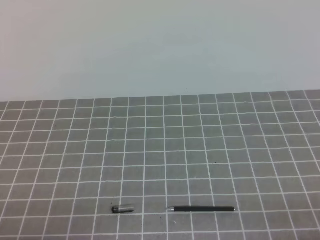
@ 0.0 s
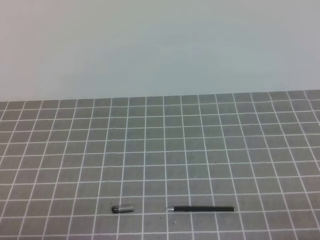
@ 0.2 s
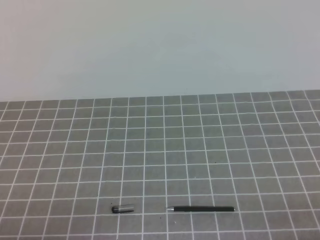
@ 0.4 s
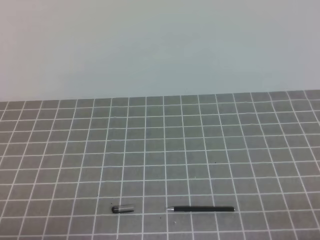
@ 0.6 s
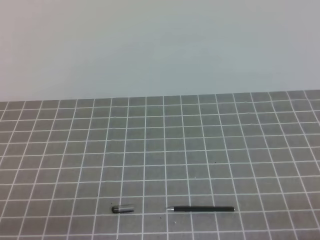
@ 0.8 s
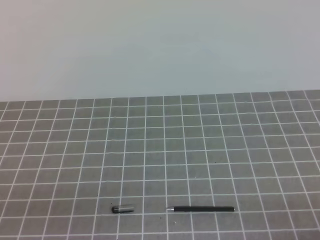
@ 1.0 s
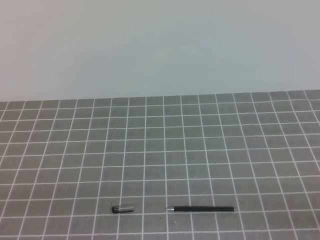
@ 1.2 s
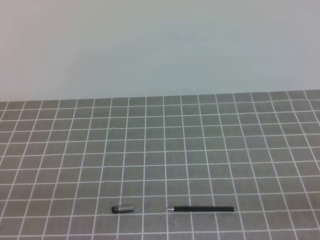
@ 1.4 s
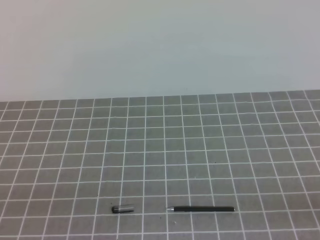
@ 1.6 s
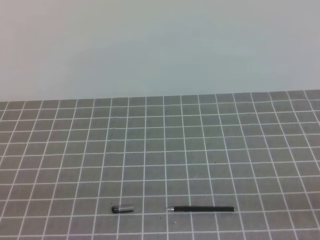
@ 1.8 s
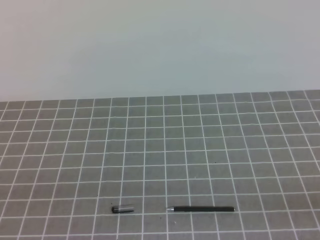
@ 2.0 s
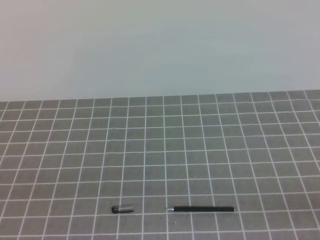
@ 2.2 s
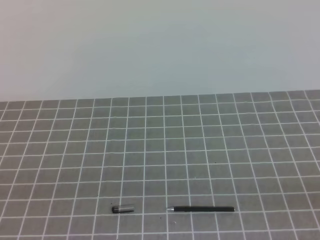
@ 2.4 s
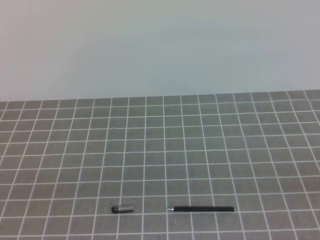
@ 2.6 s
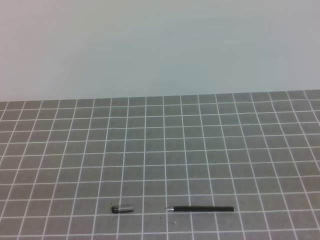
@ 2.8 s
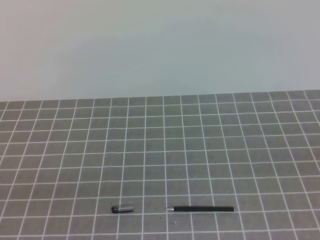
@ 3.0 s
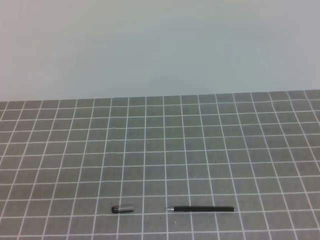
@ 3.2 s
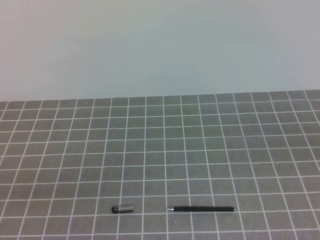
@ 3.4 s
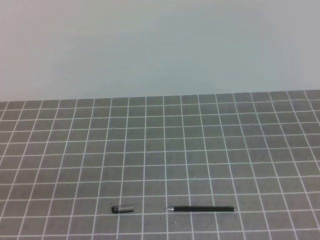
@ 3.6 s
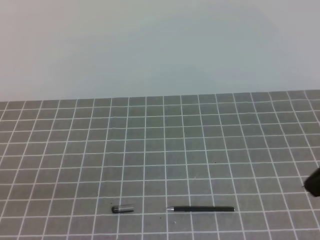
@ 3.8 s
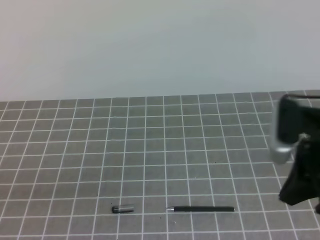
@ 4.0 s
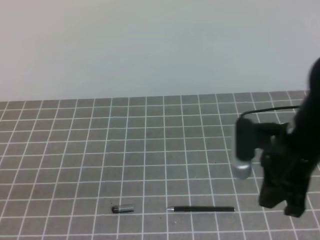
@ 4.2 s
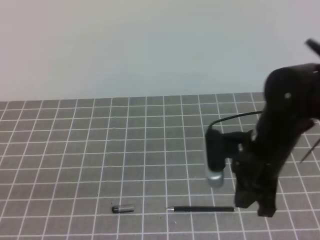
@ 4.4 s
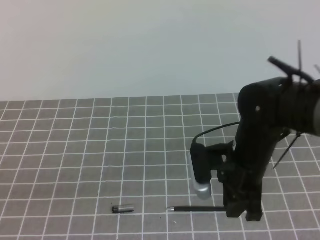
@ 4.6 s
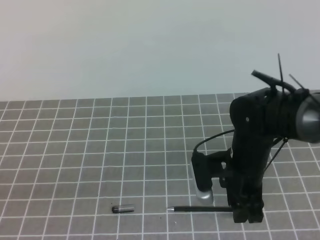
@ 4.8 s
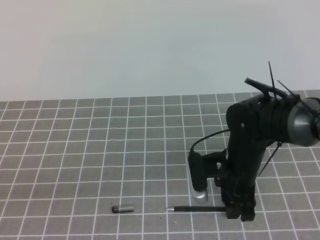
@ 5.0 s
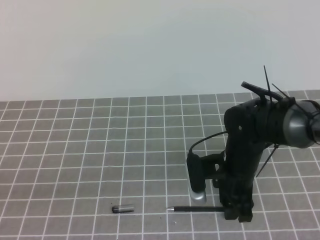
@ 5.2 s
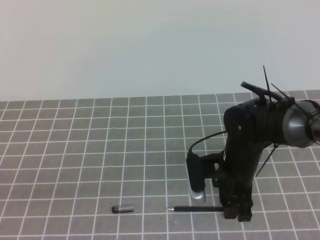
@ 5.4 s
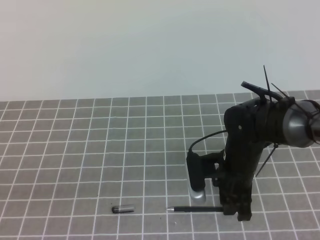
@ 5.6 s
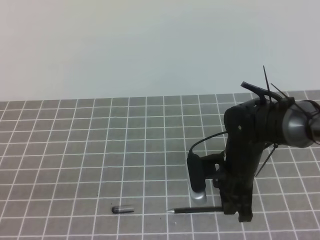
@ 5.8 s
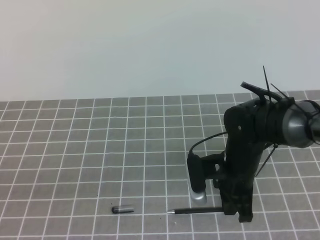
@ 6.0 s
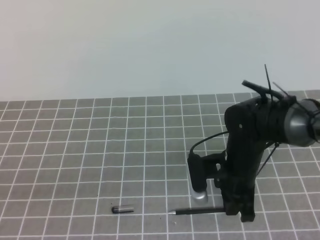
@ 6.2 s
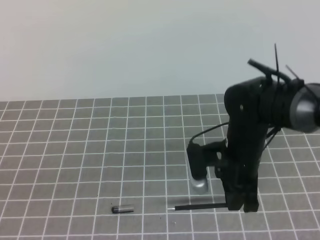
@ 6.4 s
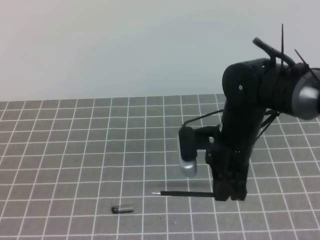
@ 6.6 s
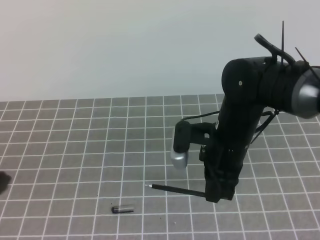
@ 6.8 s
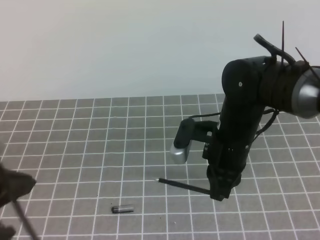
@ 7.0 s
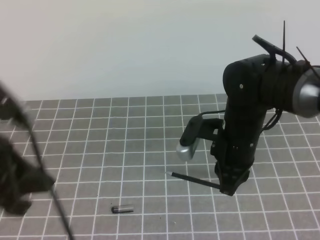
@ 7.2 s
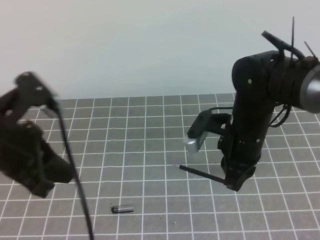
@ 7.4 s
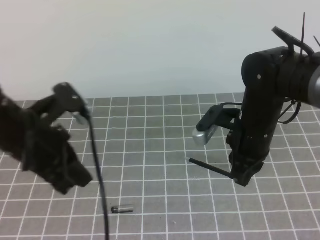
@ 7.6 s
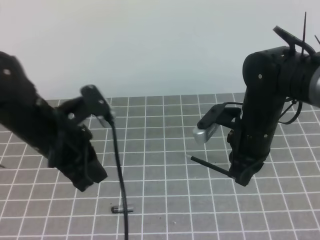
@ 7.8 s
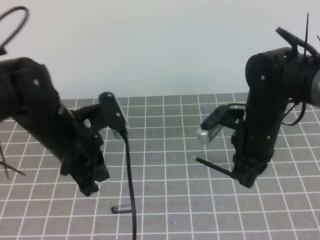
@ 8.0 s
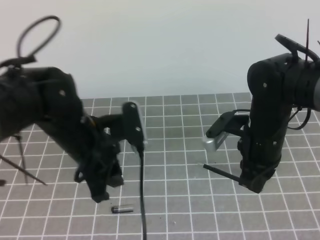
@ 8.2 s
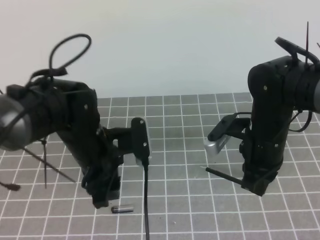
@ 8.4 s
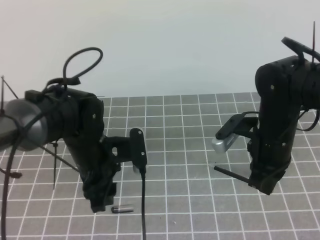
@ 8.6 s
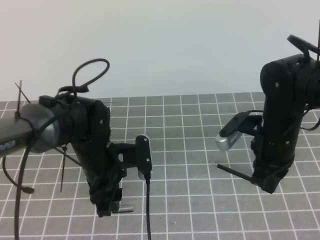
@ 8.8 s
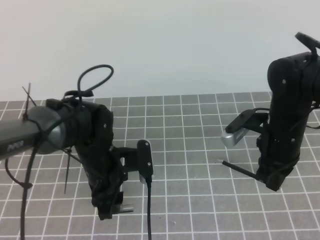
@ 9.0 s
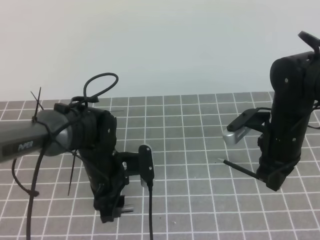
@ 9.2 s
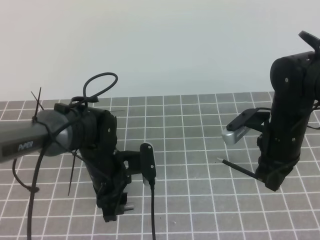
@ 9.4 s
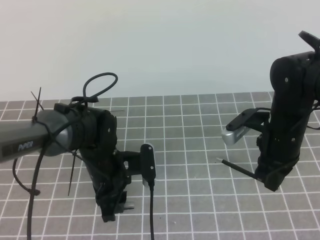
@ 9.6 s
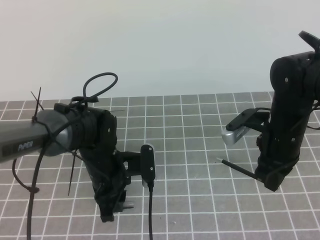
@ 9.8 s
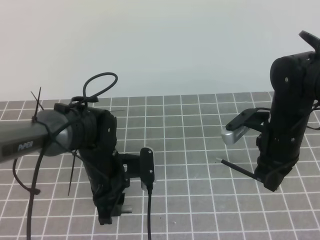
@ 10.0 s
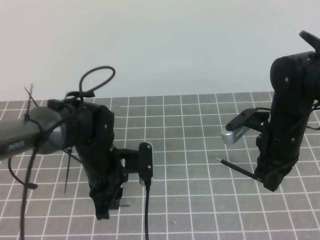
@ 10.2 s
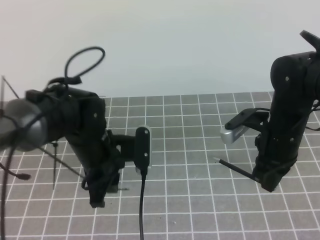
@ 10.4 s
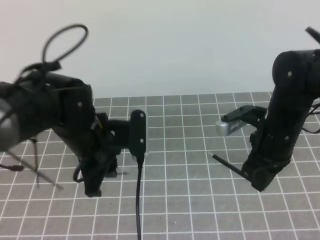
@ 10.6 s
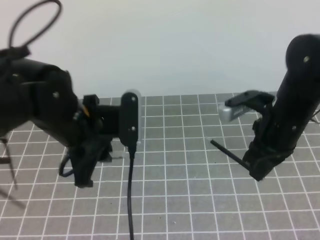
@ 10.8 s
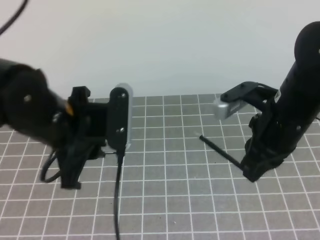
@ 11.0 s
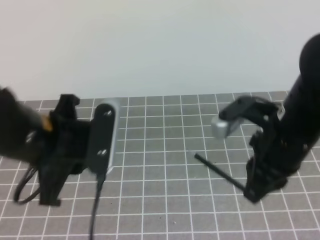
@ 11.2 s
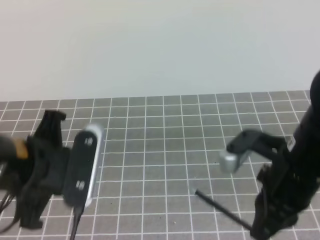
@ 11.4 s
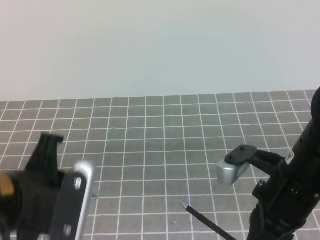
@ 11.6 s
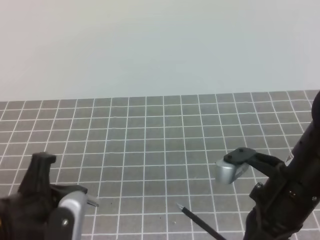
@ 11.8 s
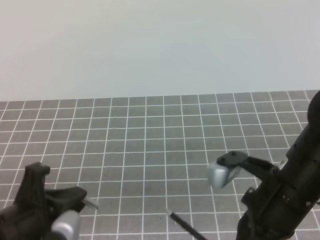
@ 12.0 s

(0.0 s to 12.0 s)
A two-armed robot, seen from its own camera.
Task of the whole recording: on the grey tablecloth, hold the pen cap in one hand and the pen in the other, then cover the pen cap.
3.0 s - 4.4 s: The right gripper shifts some 30 cm forward, to the left and downward.
4.4 s - 6.0 s: The right gripper shifts roughly 10 cm downward, and opens, then closes again.
6.0 s - 7.6 s: The left gripper goes roughly 20 cm forward and to the right, while the right gripper is displaced upward by roughly 5 cm.
7.6 s - 9.0 s: The left gripper goes approximately 15 cm downward, to the right and forward, and opens up; the right gripper ends up about 5 cm from where it was.
9.0 s - 10.4 s: The left gripper closes.
10.4 s - 12.0 s: The right gripper travels backward by about 15 cm, while the left gripper moves backward and to the left, about 20 cm.

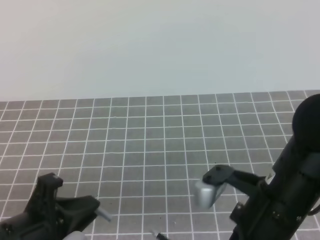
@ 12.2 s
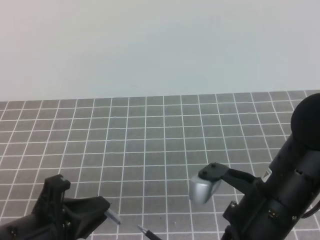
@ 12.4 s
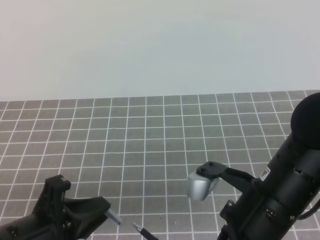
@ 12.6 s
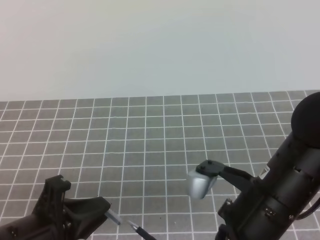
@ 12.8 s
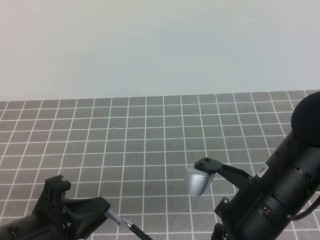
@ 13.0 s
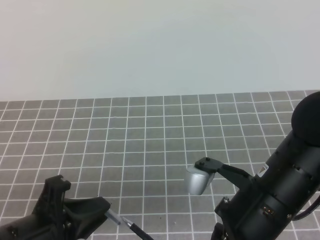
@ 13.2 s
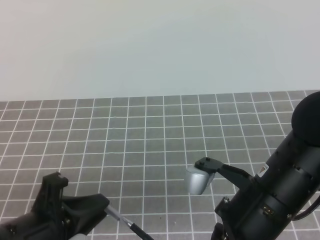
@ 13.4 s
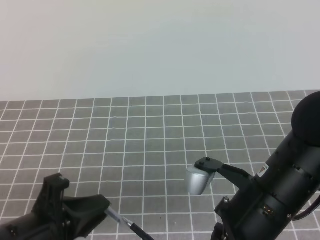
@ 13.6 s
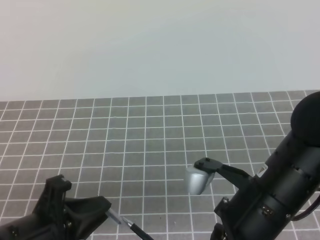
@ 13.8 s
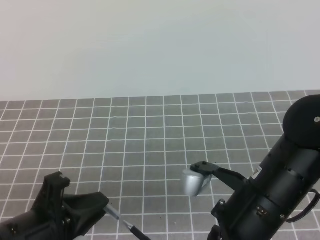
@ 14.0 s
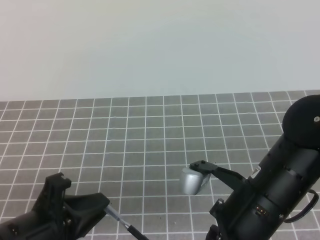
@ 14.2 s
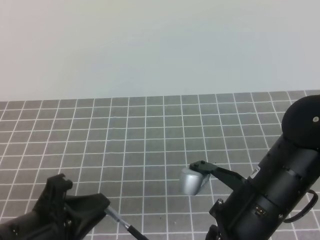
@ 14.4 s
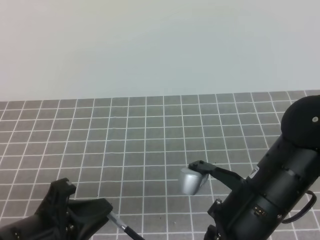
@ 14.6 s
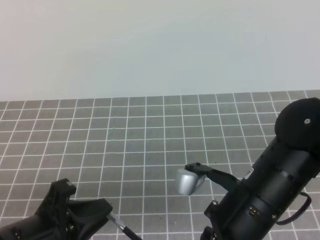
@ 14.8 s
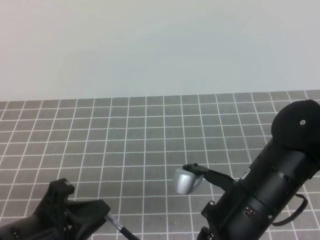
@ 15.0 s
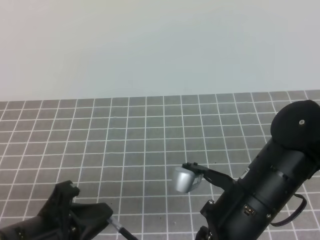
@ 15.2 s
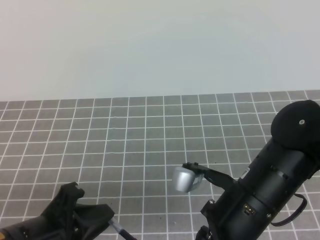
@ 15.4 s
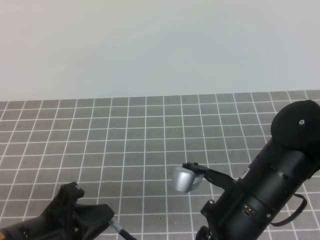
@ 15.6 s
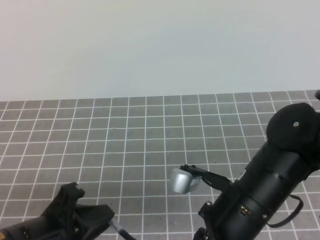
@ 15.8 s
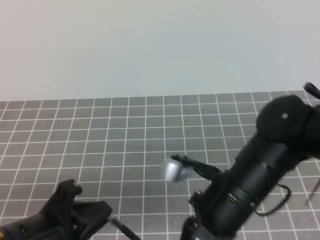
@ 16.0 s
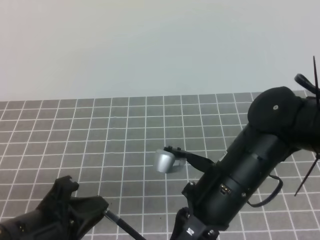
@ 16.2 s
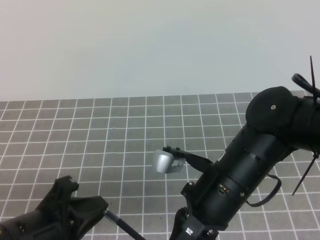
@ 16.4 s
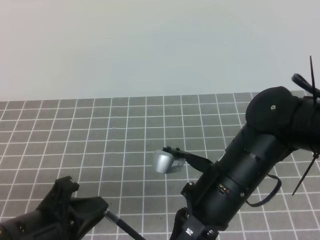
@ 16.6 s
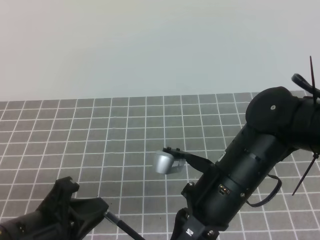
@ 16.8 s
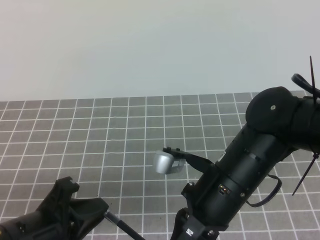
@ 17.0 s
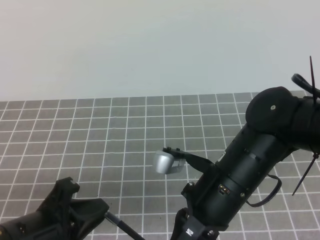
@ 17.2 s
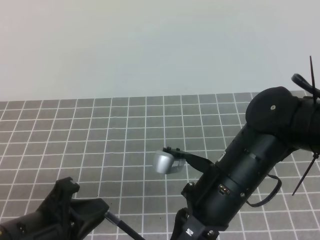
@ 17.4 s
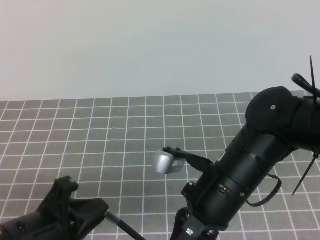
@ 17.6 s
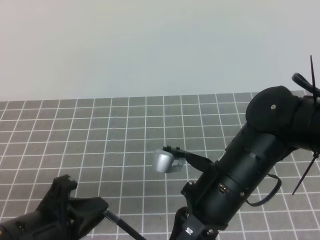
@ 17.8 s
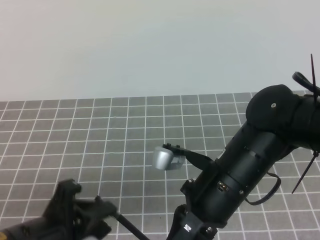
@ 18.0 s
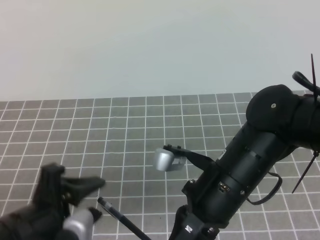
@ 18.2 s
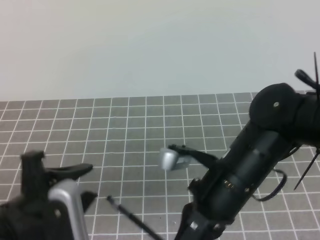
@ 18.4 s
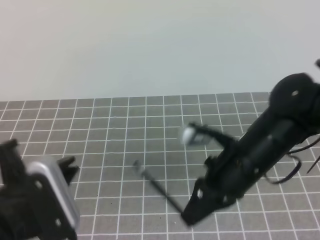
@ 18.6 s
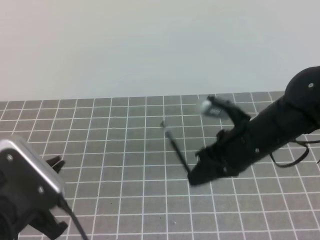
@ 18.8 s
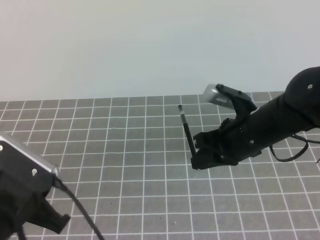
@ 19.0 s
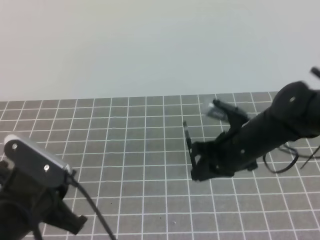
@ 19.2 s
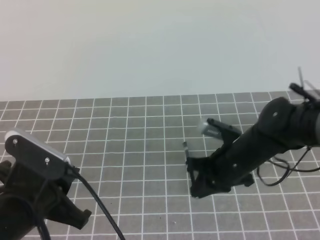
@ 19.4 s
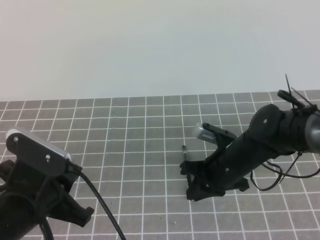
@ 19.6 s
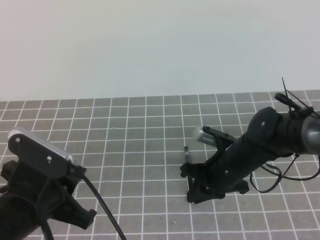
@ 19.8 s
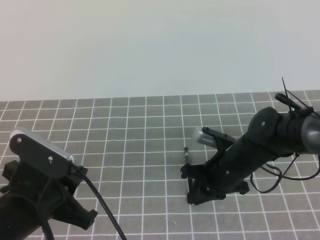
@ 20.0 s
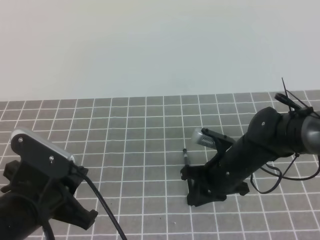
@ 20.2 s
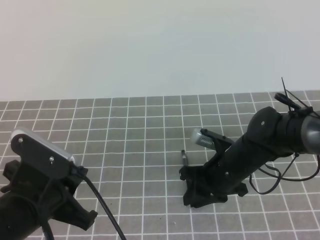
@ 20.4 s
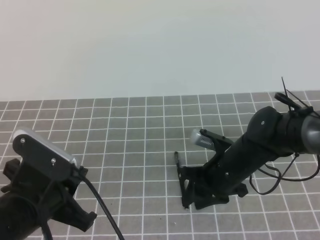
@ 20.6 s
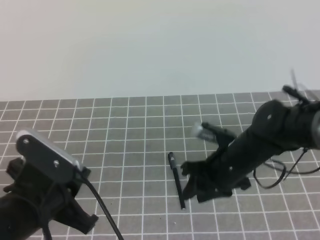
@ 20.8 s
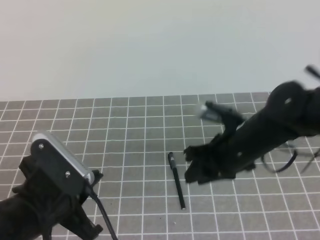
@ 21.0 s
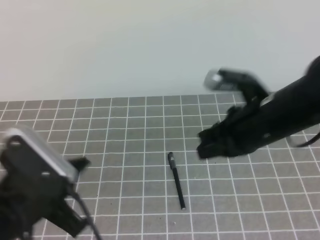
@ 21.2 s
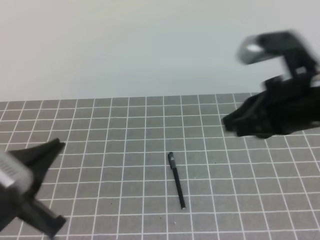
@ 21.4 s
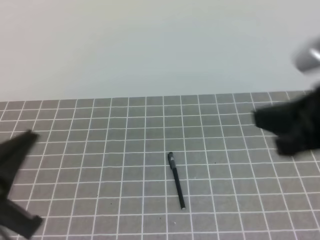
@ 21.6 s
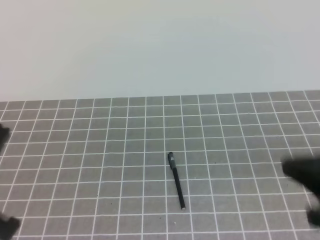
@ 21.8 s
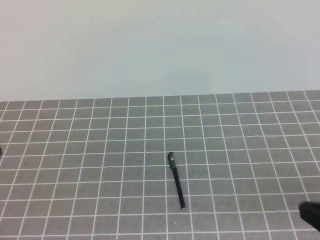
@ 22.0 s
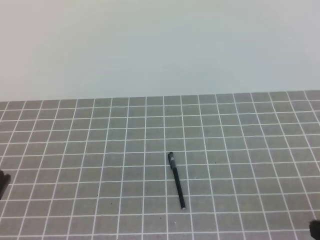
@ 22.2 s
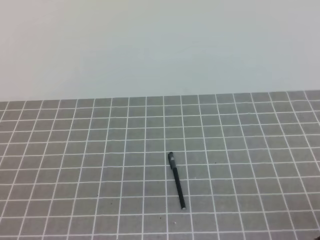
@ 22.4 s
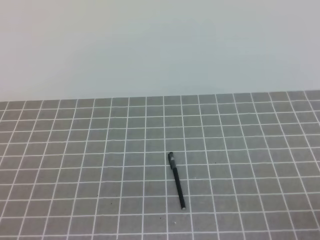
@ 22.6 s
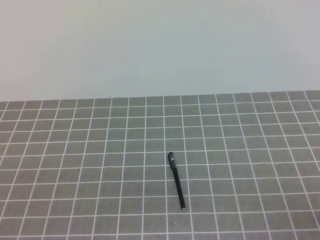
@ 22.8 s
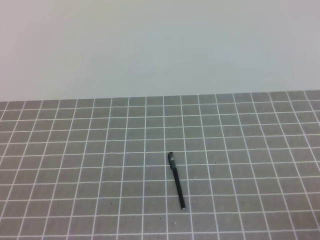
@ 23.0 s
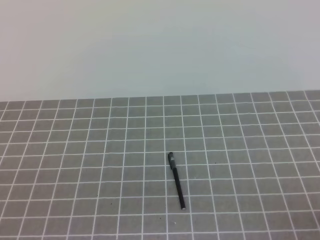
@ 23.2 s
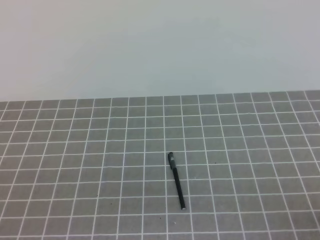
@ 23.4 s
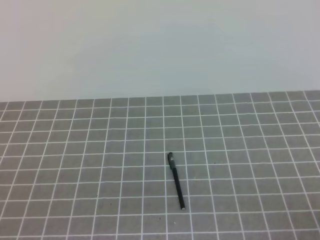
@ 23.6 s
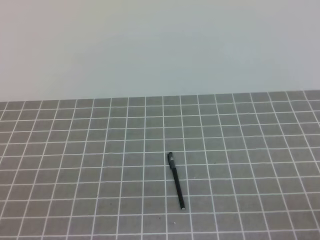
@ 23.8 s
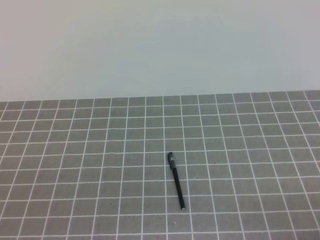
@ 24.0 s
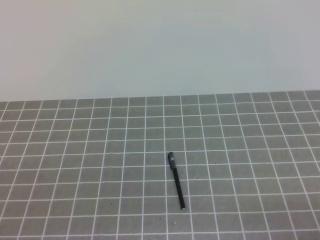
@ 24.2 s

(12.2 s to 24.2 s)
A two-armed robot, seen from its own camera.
Task of the whole recording: on the grey tablecloth, hold the pen cap in one hand and the pen in the other, then cover the pen cap.
12.2 s - 15.2 s: There are only small adjustments of the grippers.
15.2 s - 16.6 s: The grippers move only a little.
16.6 s - 18.2 s: The left gripper opens its fingers.
18.2 s - 19.8 s: The right gripper moves forward and downward, about 15 cm, while the left gripper closes up.
19.8 s - 21.2 s: The right gripper travels upward by about 15 cm, and opens, then closes once more.
21.2 s - 22.6 s: The right gripper goes roughly 25 cm backward and to the right. The left gripper shifts approximately 10 cm backward and to the left.
